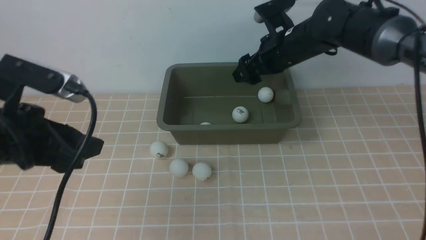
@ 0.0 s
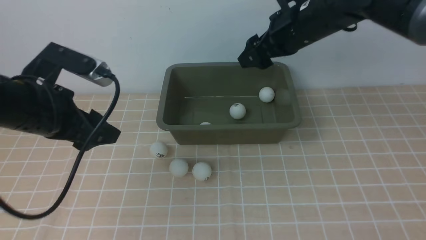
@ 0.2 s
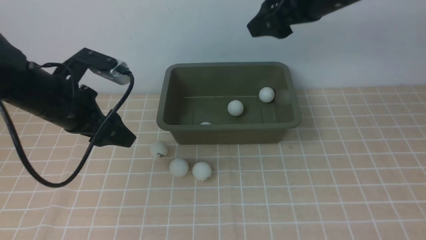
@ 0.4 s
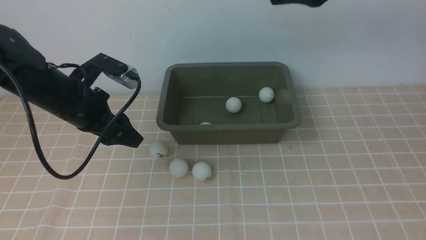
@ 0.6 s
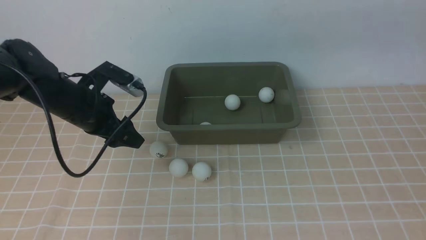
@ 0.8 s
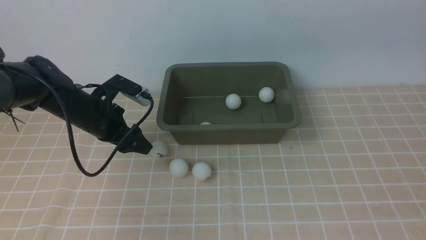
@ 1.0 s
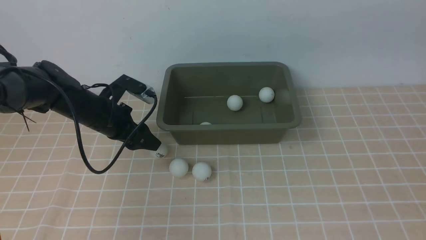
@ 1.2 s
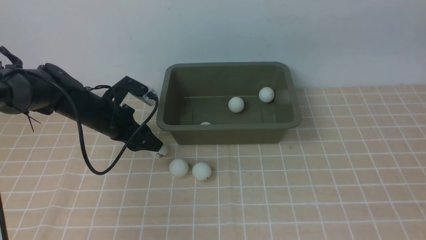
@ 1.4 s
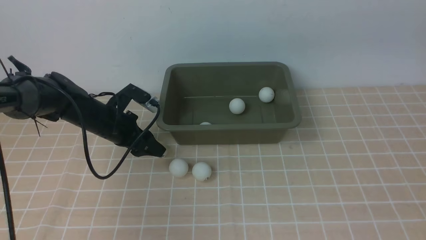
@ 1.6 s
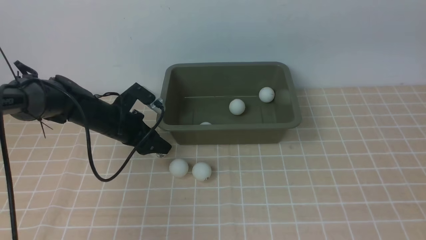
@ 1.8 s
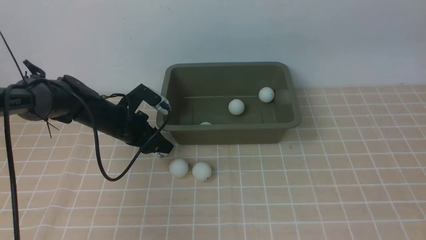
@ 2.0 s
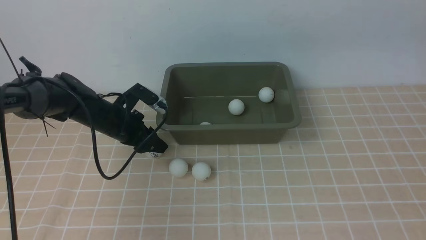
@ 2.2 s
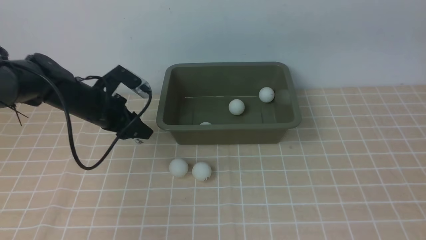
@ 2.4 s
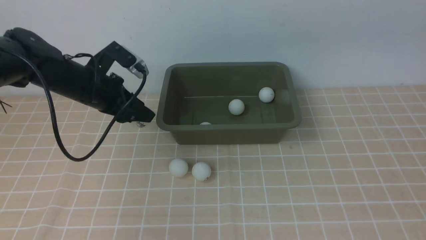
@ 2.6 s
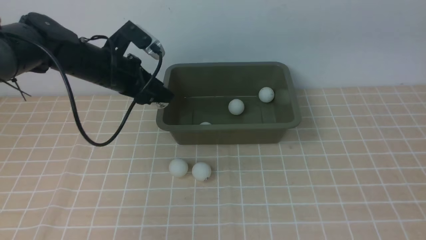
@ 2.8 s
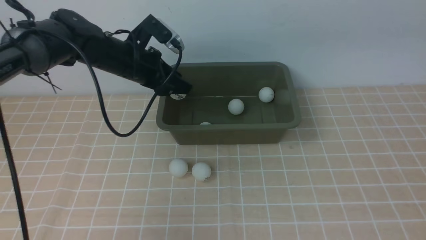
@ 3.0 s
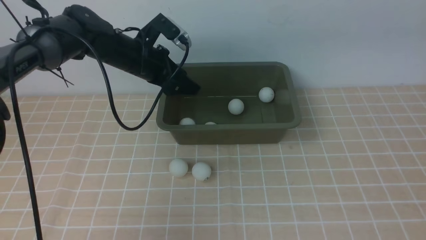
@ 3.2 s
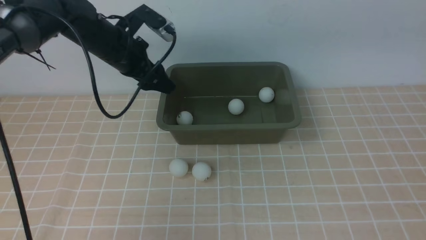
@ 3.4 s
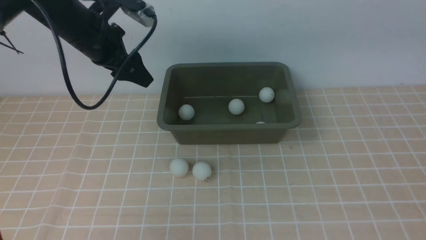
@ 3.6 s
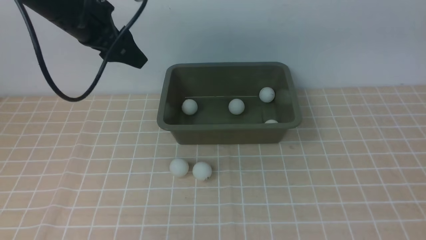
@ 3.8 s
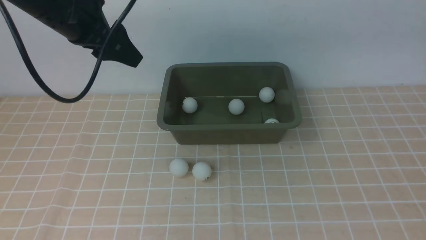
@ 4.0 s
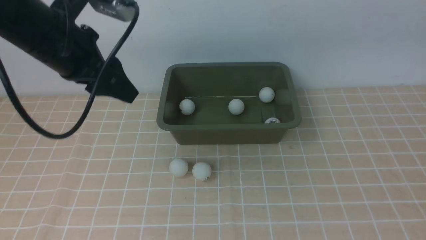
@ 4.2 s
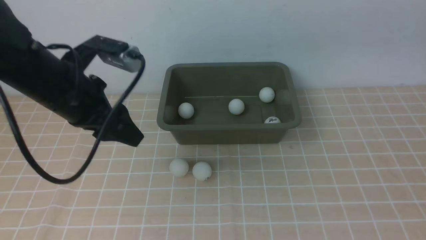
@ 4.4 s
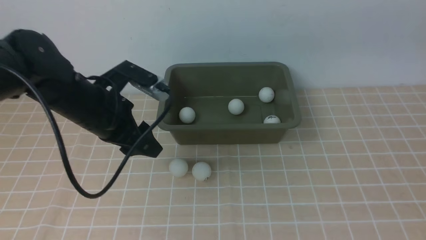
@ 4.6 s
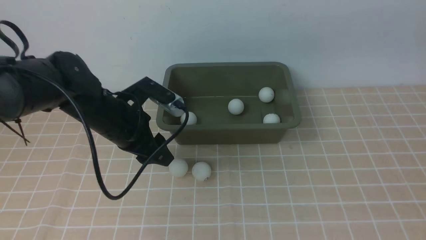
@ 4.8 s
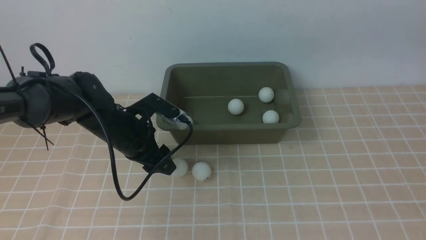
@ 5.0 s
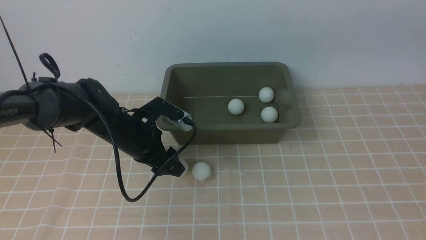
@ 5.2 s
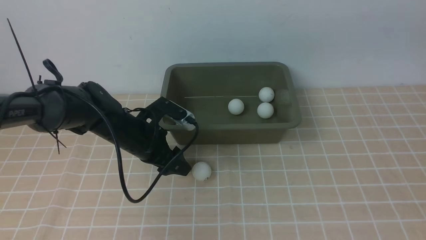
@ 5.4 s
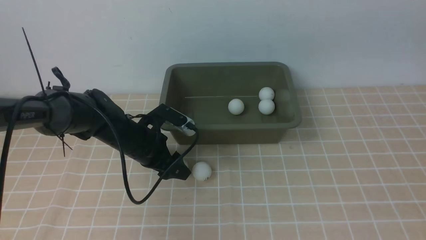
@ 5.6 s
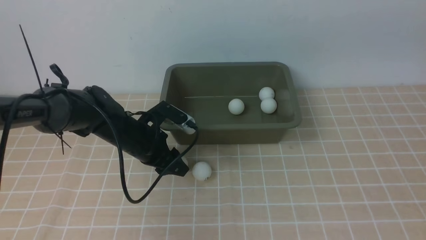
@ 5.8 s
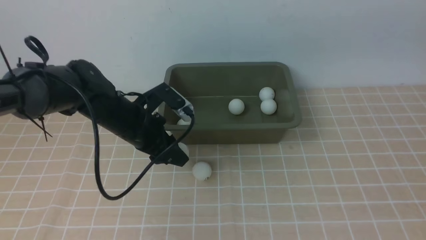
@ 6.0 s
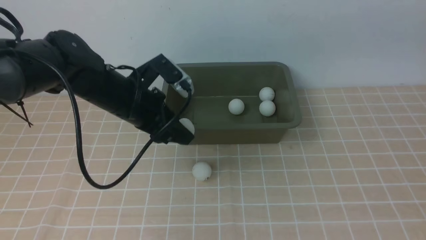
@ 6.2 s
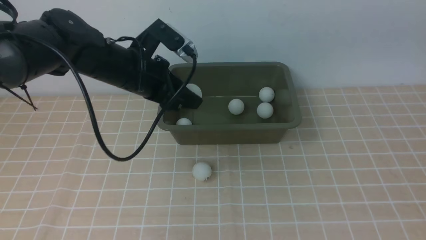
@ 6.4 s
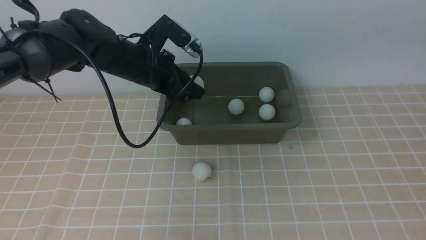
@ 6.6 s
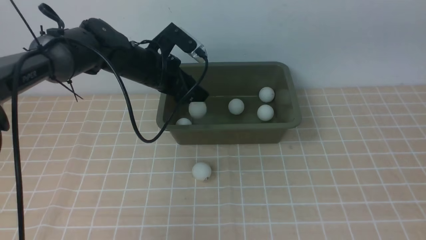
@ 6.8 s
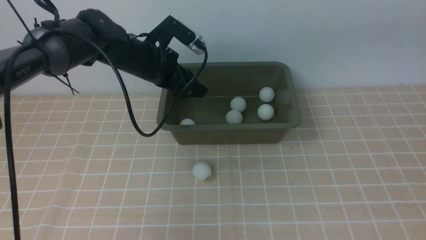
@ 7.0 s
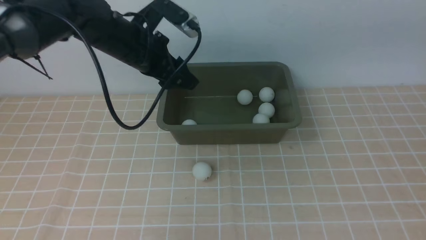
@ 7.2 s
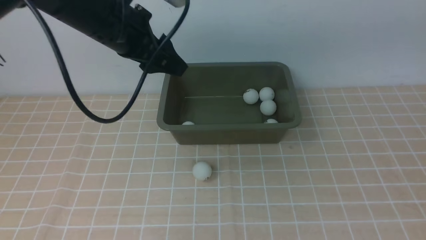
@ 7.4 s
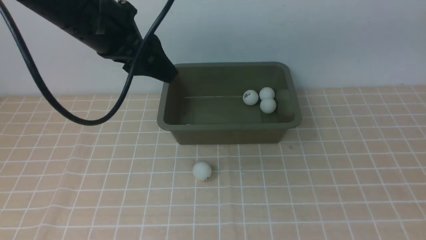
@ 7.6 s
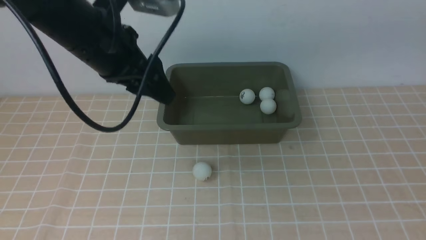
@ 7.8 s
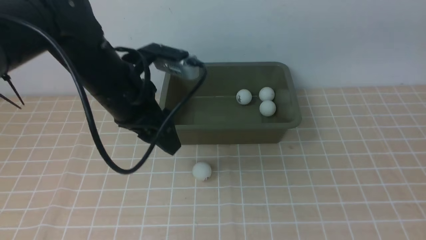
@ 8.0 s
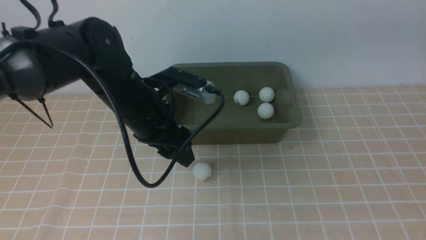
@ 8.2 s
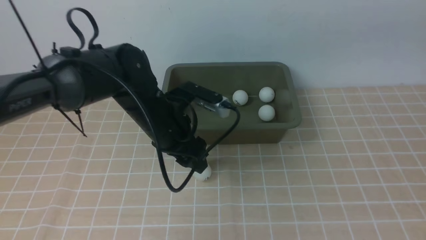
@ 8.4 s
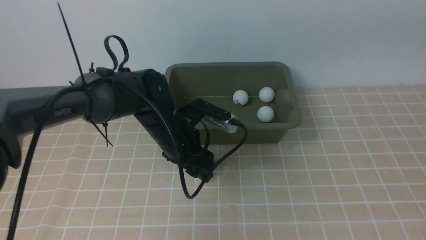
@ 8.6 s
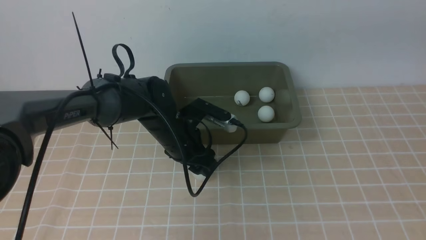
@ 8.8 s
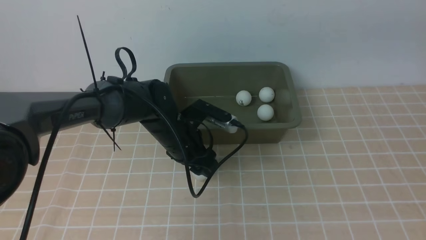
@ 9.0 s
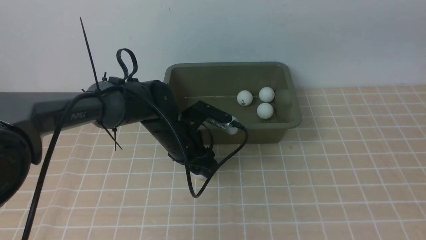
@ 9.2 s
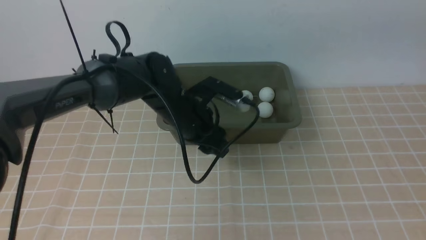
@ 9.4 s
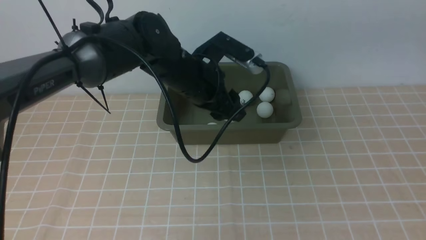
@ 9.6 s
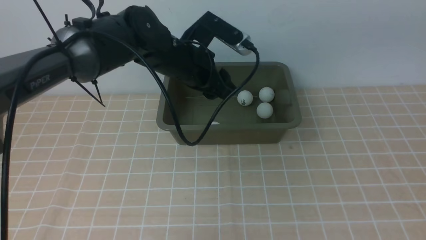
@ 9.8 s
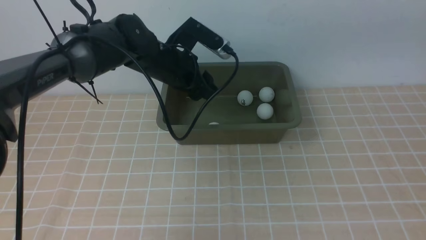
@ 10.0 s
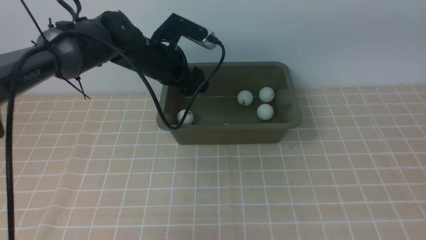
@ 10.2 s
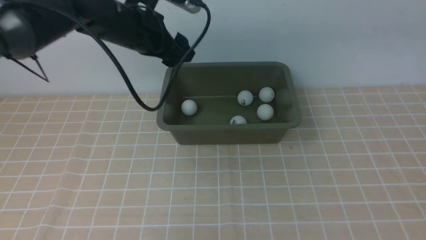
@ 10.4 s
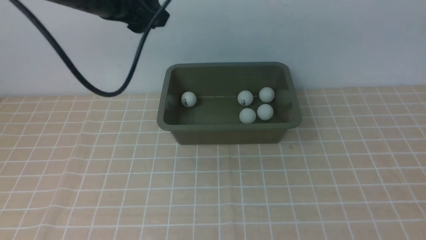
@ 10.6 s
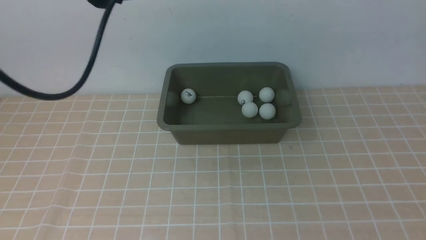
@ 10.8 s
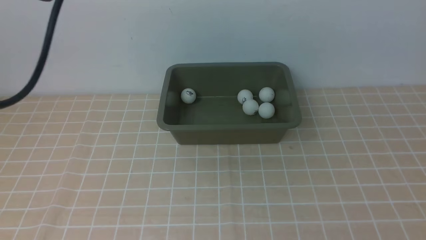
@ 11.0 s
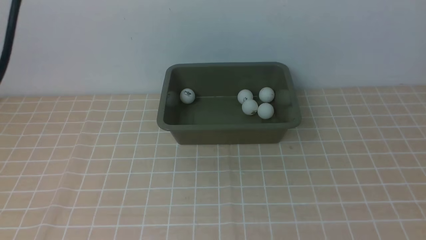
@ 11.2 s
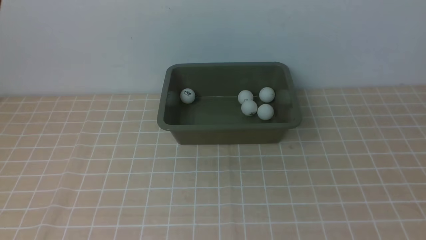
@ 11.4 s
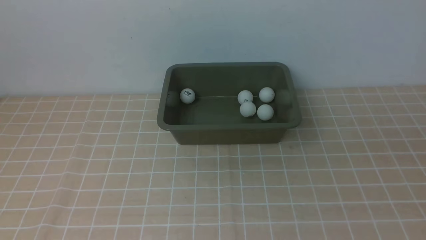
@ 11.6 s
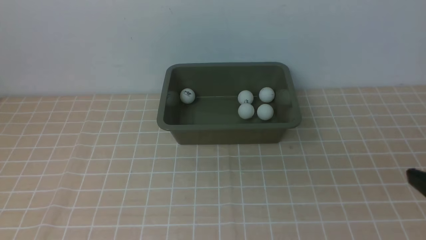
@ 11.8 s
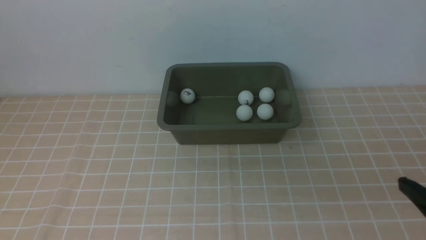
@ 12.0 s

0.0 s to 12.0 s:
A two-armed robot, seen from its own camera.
Step, 0.4 to 2.8 s: use the left arm to clamp the table tennis ball closest to it.
Step, 3.0 to 3.8 s: use the left arm to put the table tennis ball into the box.
Step, 4.0 to 6.2 s: use the left arm to clamp the table tennis ball closest to it.
Step, 6.4 to 7.4 s: use the left arm to put the table tennis ball into the box.
Step, 7.6 to 9.4 s: use the left arm to clamp the table tennis ball closest to it.
Step, 9.6 to 10.6 s: use the left arm to put the table tennis ball into the box.
0.0 to 1.6 s: The left gripper is displaced forward and downward by about 25 cm, while the right gripper travels upward and backward by roughly 30 cm.
1.6 to 3.0 s: The left gripper is displaced upward by about 10 cm, and closes up.
3.0 to 4.4 s: The left gripper shifts approximately 15 cm backward, and opens and closes again.
4.4 to 6.0 s: The left gripper is displaced downward by about 10 cm, and closes.
6.0 to 7.6 s: The left gripper is displaced upward by approximately 15 cm, and opens its fingers.
7.6 to 9.0 s: The left gripper heads downward, covering some 20 cm.
9.0 to 10.4 s: The left gripper heads upward, covering some 20 cm, and opens.
10.4 to 12.0 s: The left gripper is displaced backward and upward by approximately 25 cm, and closes up. The right gripper moves downward and backward, about 25 cm.

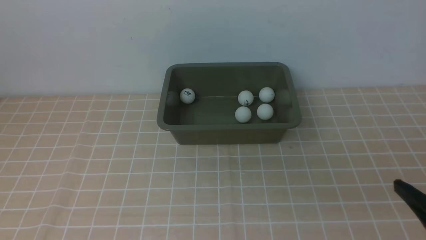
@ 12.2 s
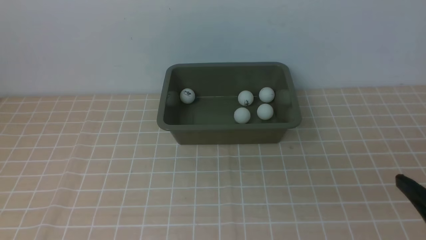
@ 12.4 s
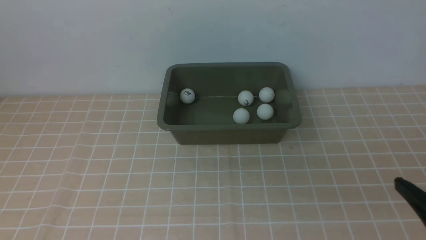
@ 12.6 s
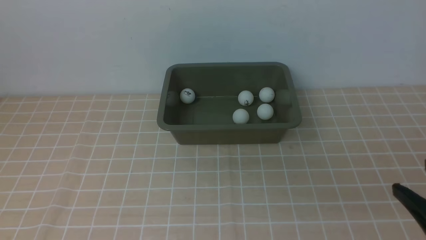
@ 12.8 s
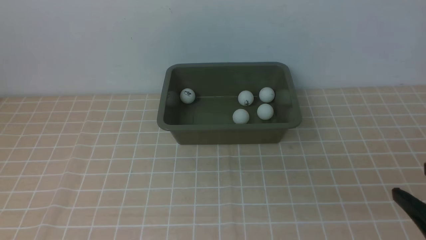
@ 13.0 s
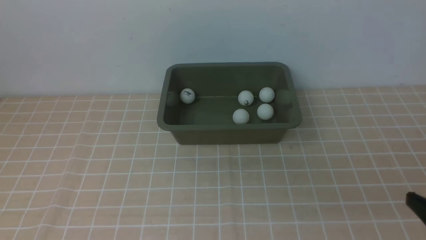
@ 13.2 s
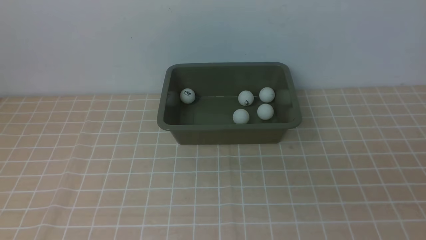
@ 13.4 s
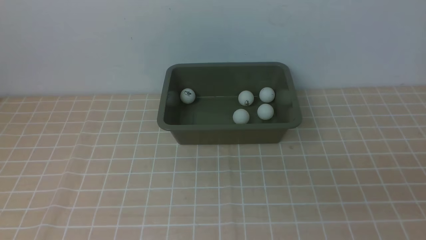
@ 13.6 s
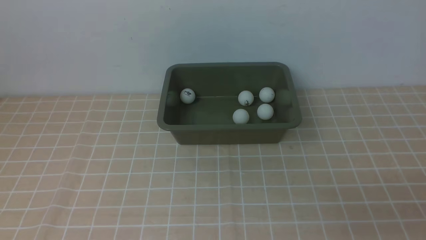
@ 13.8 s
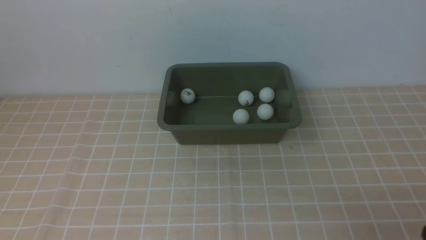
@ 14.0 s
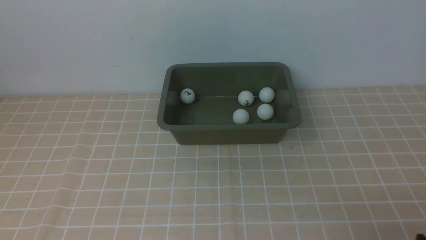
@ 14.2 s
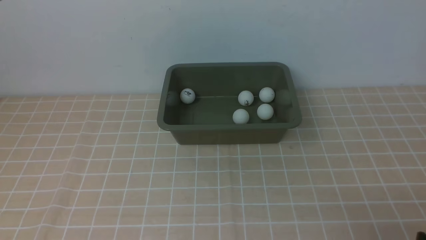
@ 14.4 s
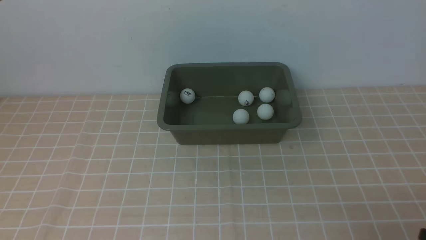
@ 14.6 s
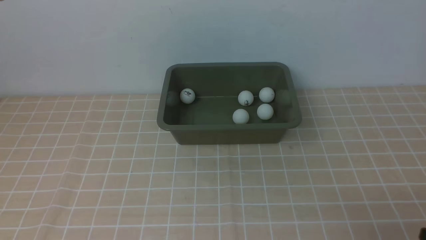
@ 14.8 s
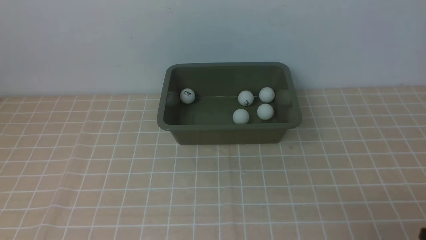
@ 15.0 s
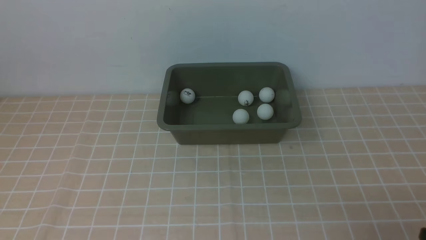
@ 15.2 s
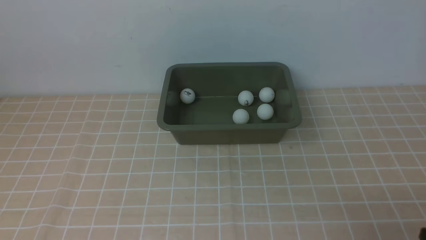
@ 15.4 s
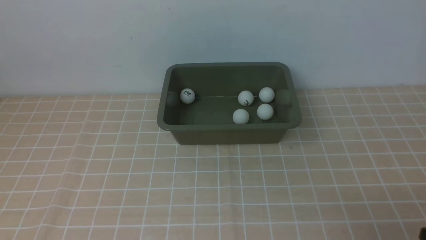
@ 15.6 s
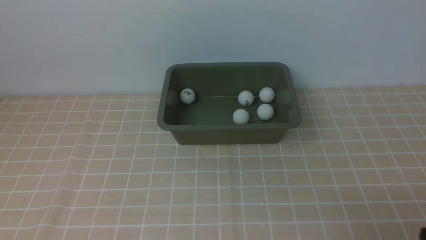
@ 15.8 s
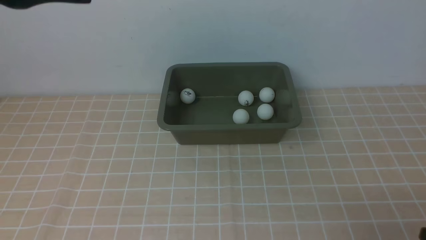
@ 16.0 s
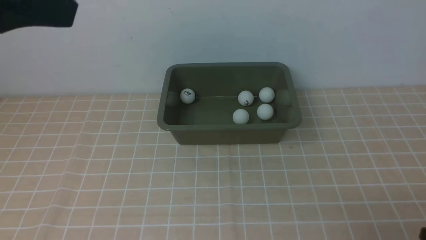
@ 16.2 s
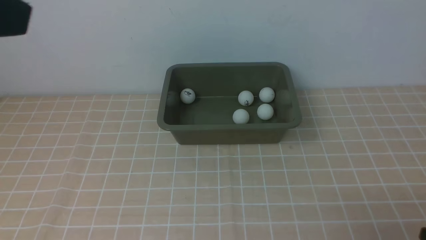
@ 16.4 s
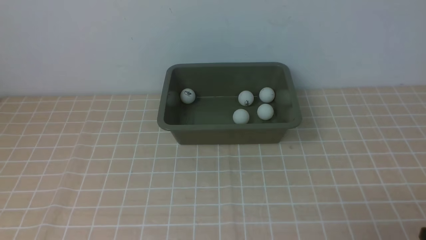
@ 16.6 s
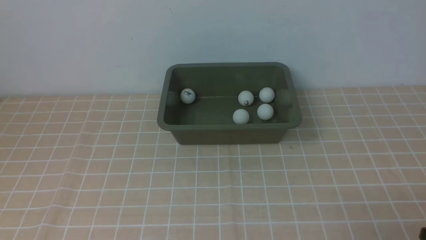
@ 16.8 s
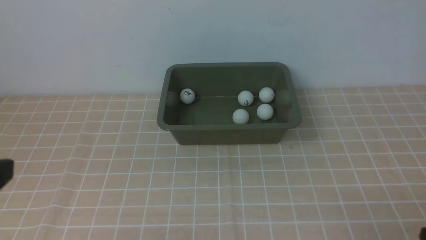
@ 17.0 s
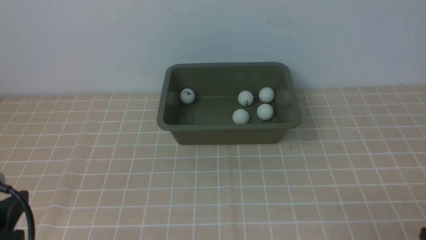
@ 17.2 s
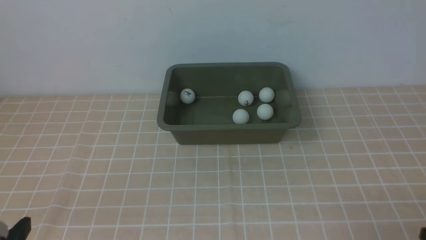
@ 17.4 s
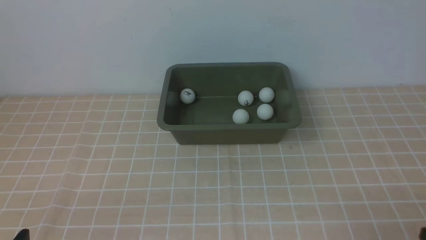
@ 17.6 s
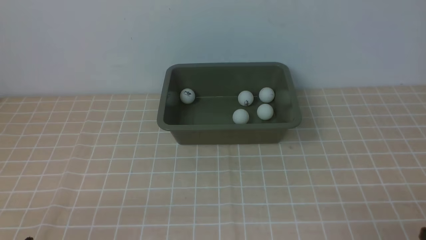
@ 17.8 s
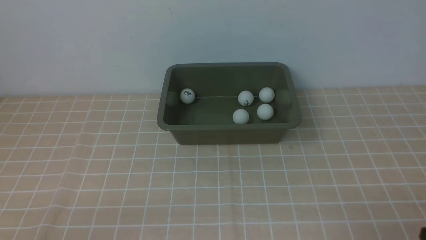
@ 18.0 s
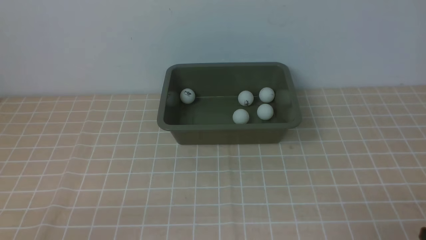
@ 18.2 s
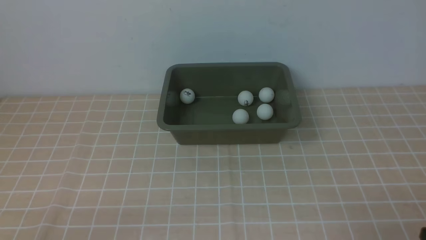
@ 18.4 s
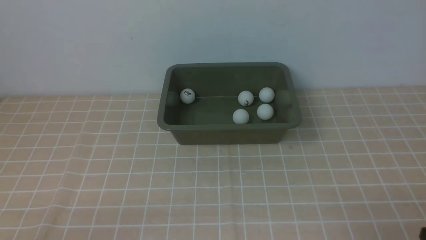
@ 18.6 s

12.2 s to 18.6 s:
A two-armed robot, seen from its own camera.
12.2 to 13.8 s: The right gripper heads downward, covering approximately 5 cm.
